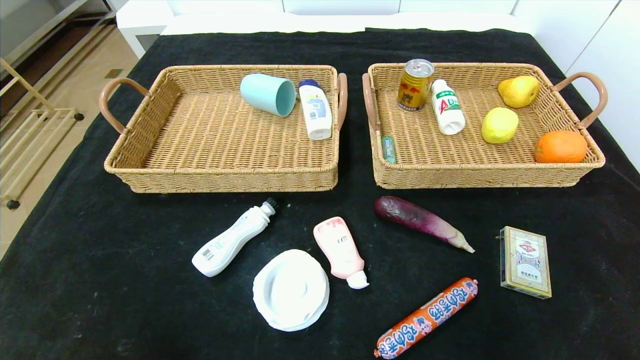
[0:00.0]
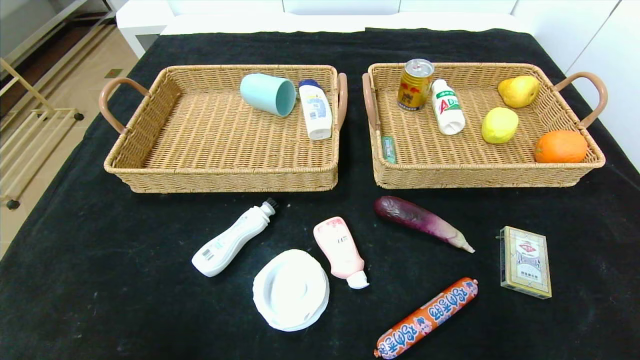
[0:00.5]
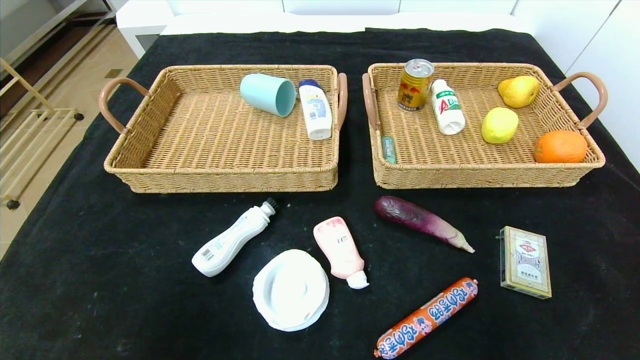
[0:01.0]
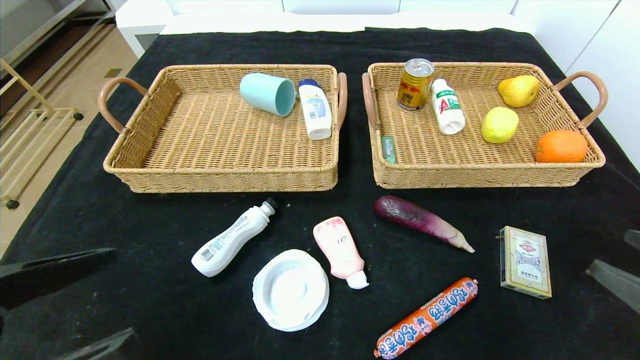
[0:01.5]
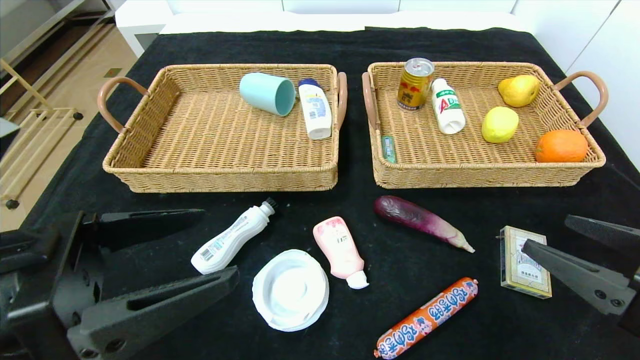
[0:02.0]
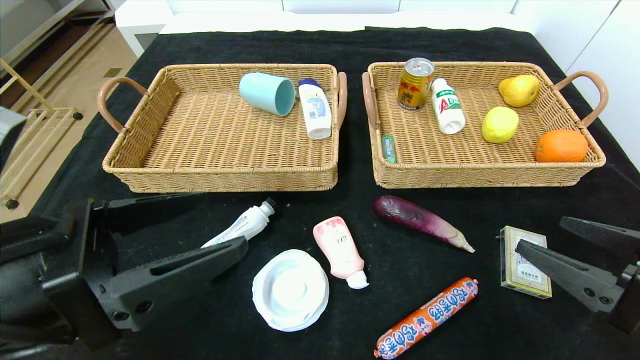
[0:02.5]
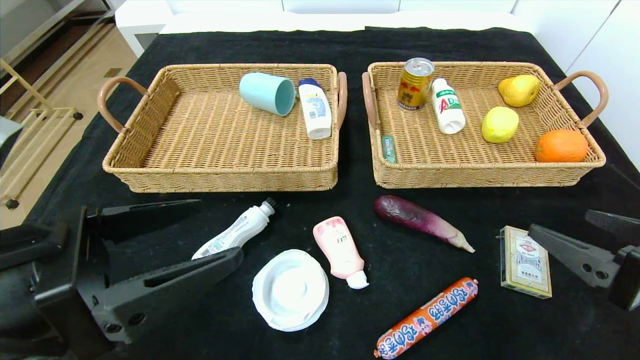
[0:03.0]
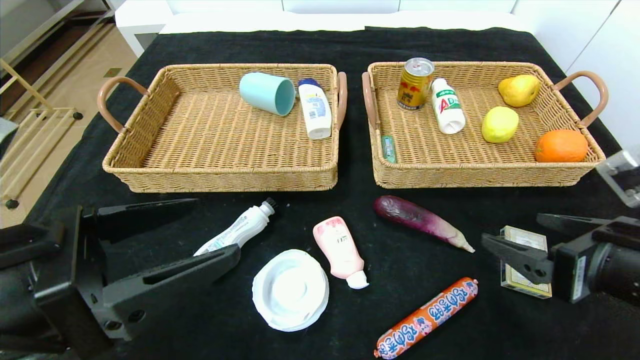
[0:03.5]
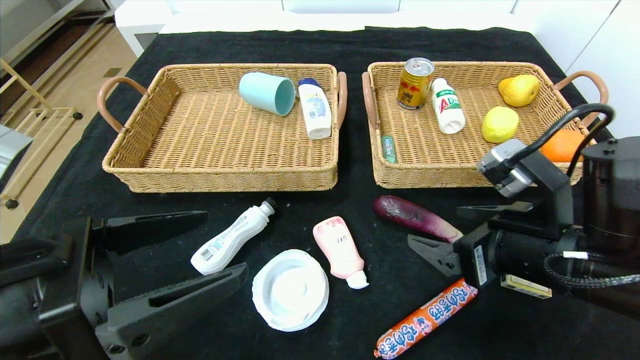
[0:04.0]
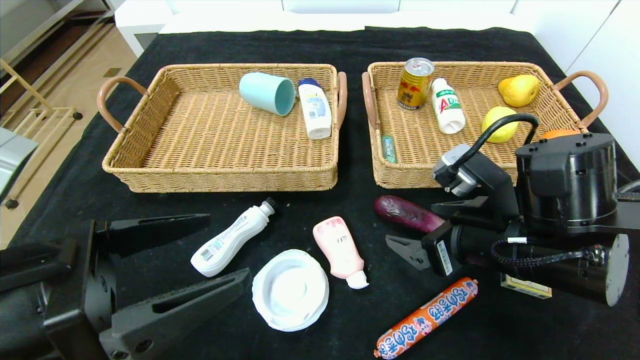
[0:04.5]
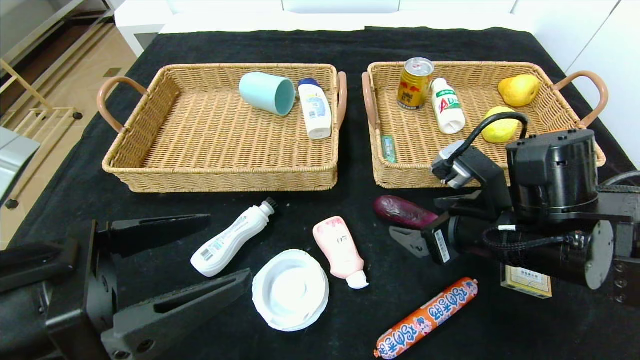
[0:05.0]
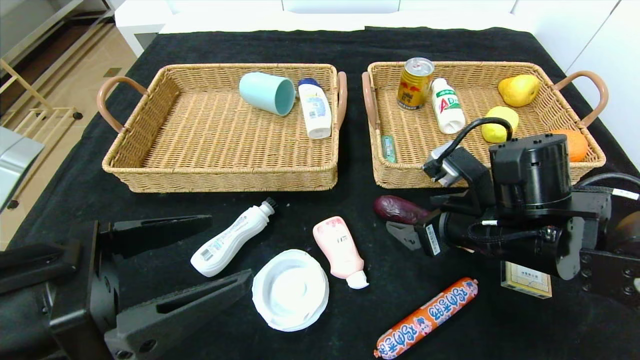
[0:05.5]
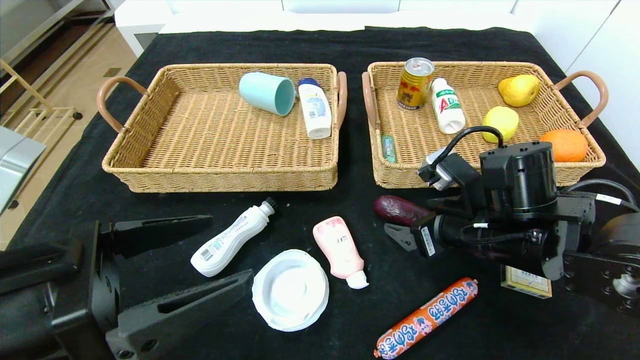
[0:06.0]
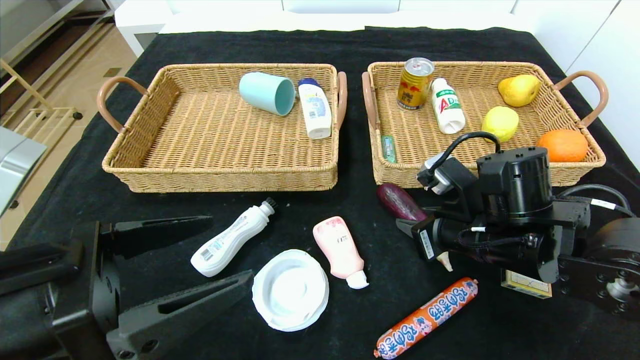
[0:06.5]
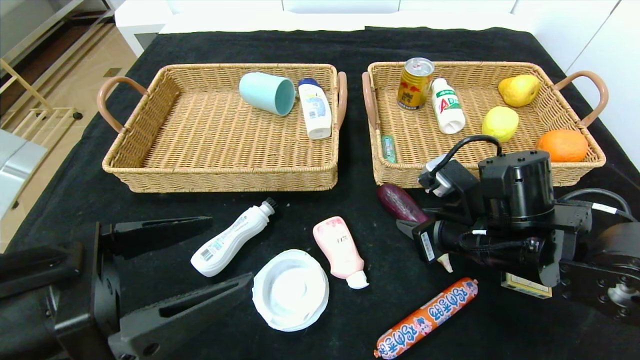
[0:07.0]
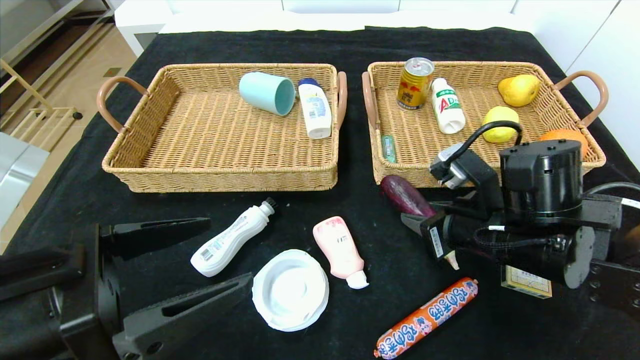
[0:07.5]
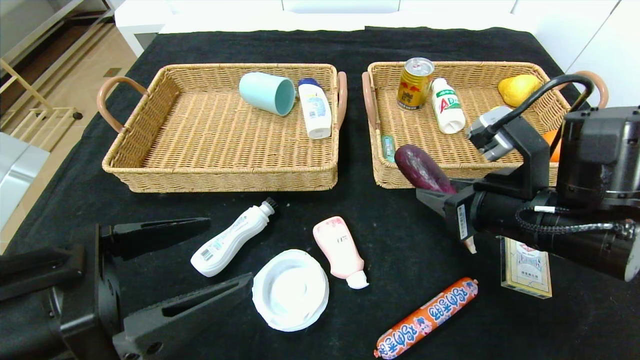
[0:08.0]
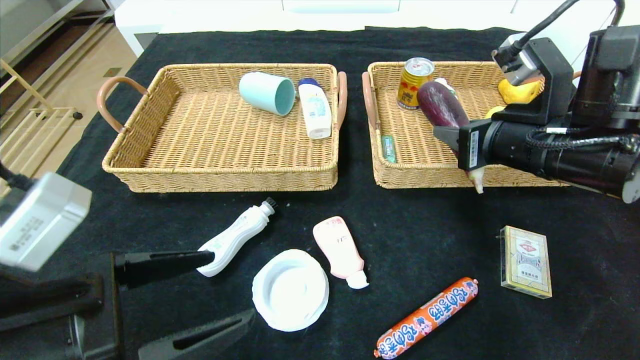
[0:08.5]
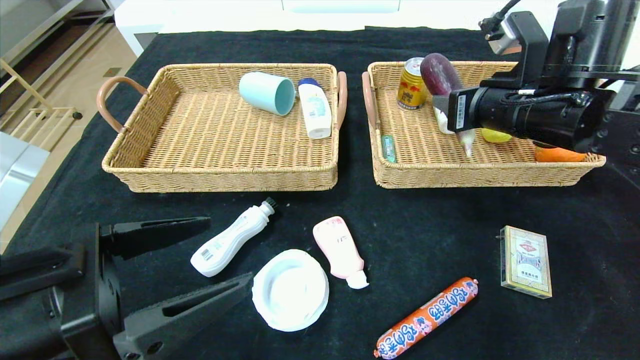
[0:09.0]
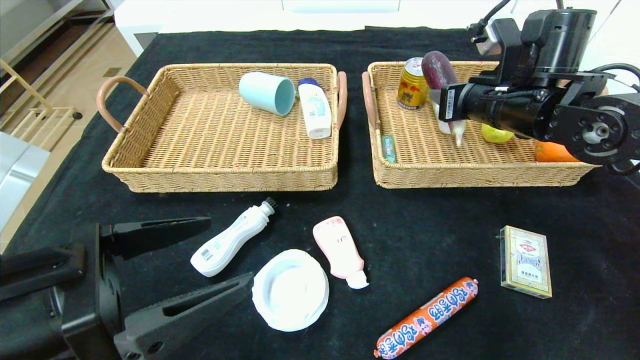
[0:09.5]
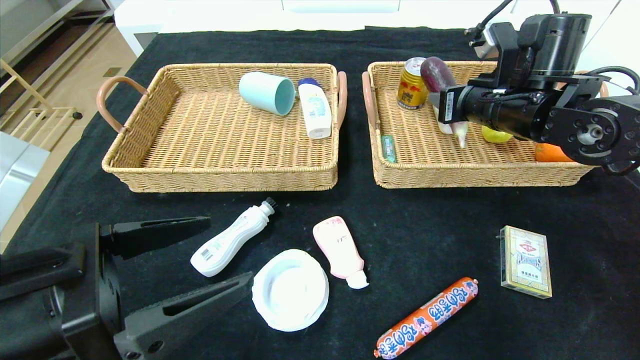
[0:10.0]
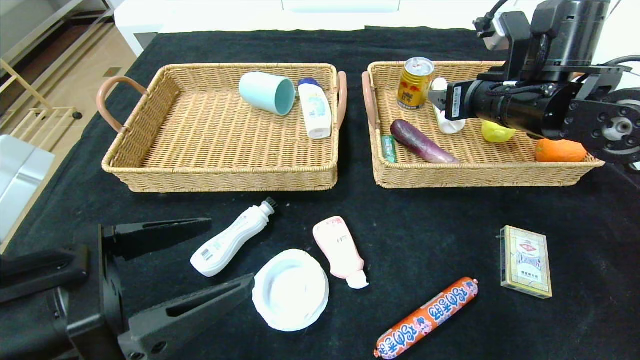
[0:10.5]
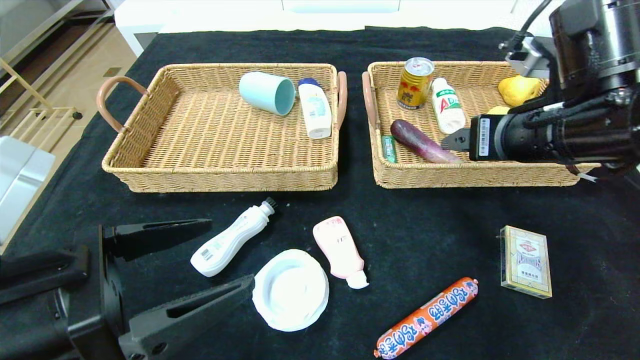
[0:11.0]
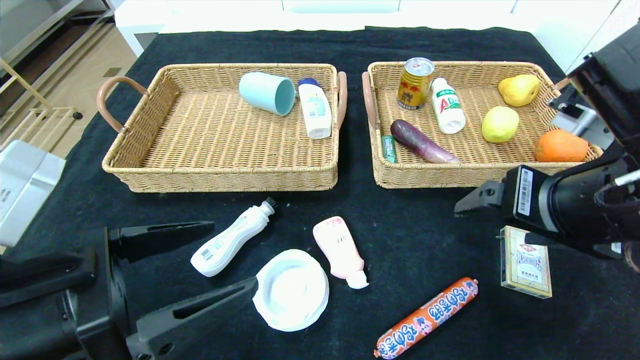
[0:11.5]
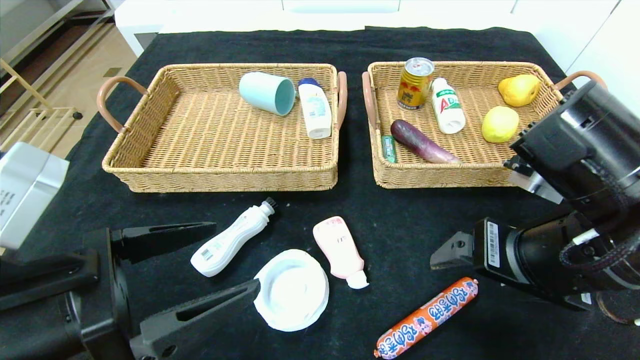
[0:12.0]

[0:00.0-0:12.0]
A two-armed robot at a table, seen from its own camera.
Step, 0:00.0 to 0:10.0: Grasp the eggplant and put it in the right basket.
0:00.0 to 0:02.0: The right gripper heads forward, upward and to the left, covering approximately 20 cm, while the left gripper heads upward, forward and to the right, covering about 25 cm.
0:02.0 to 0:04.0: The right gripper moves to the left and forward, approximately 10 cm.
0:04.0 to 0:06.0: The right gripper travels forward by some 5 cm.
0:06.0 to 0:08.0: The right gripper changes place by about 5 cm, and closes up.
0:08.0 to 0:10.0: The right gripper travels forward and upward by some 15 cm.
0:10.0 to 0:12.0: The right gripper heads backward, covering roughly 20 cm, and opens up.

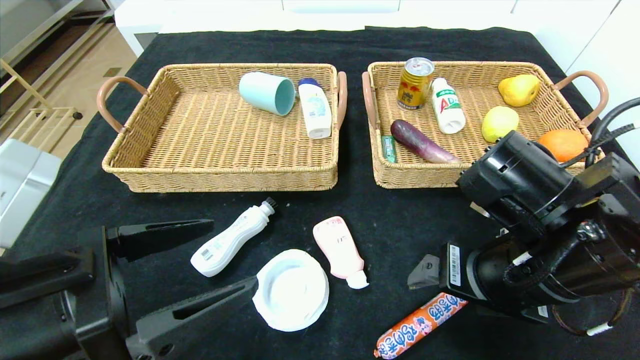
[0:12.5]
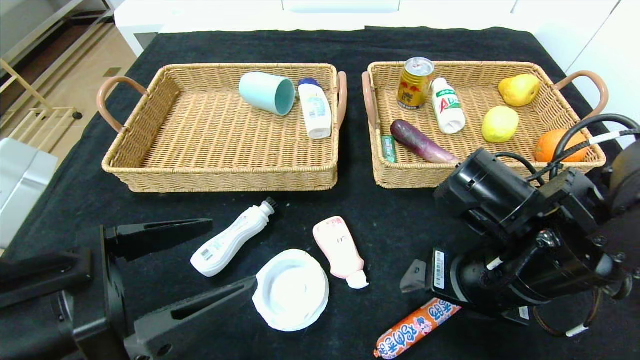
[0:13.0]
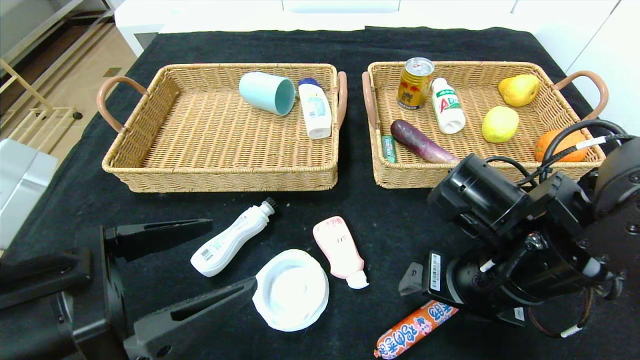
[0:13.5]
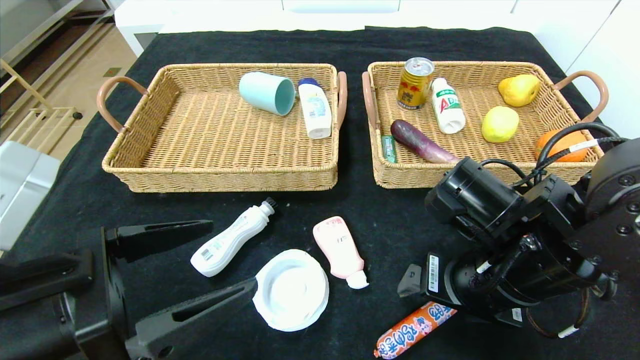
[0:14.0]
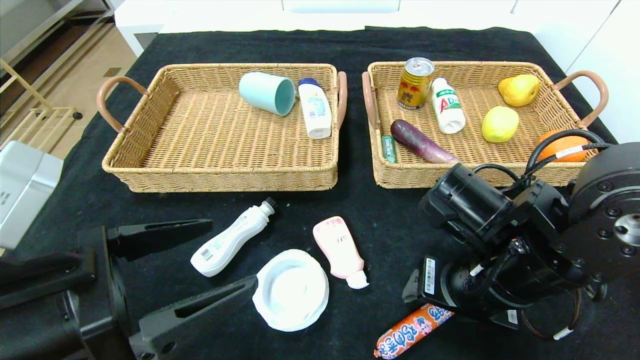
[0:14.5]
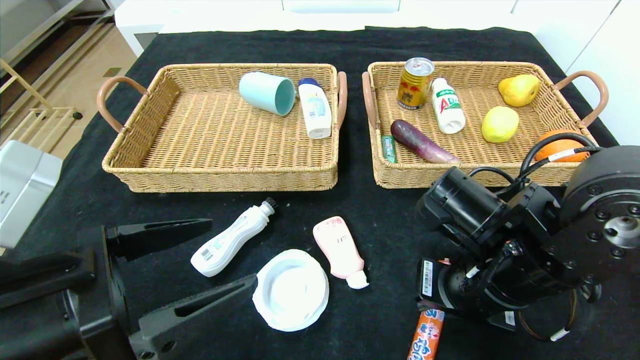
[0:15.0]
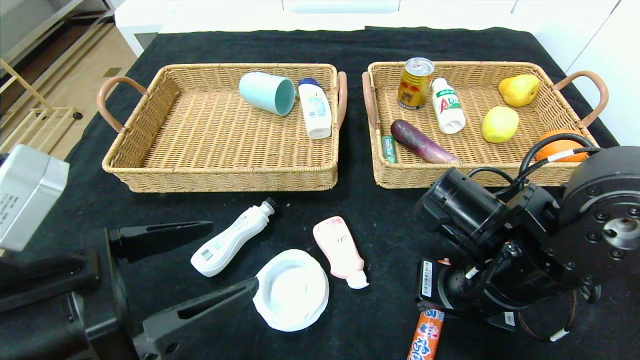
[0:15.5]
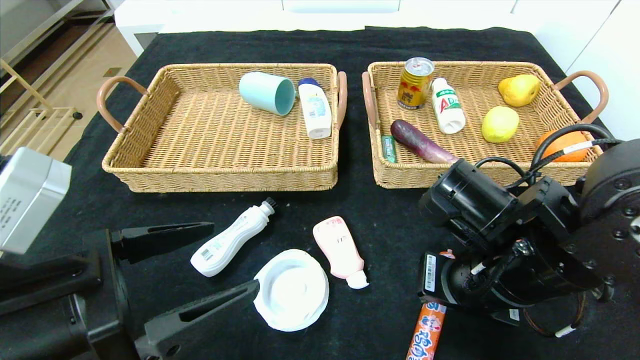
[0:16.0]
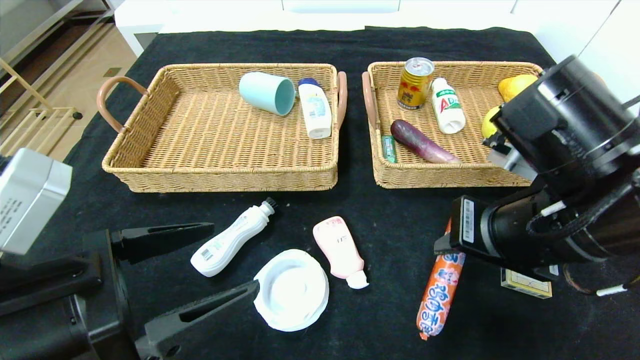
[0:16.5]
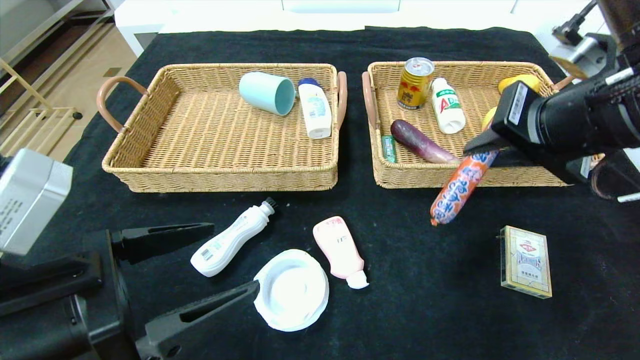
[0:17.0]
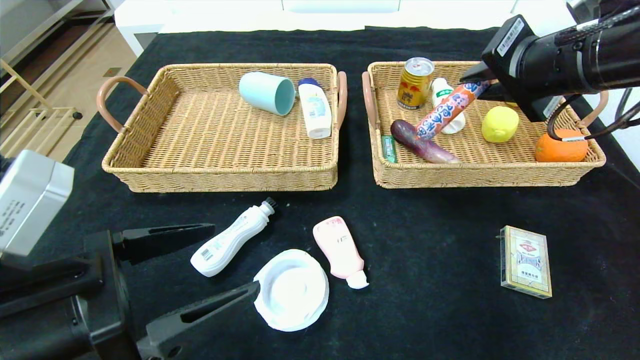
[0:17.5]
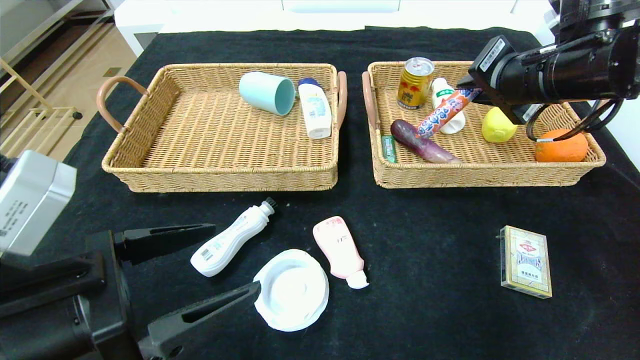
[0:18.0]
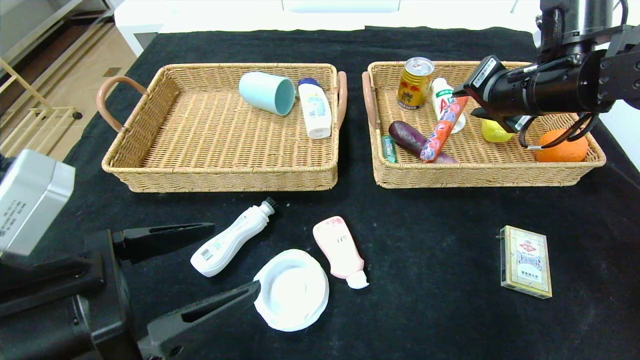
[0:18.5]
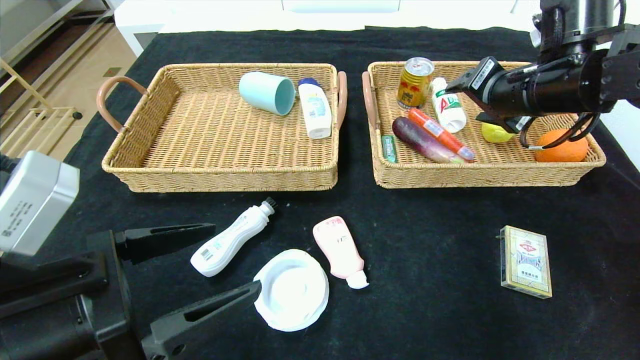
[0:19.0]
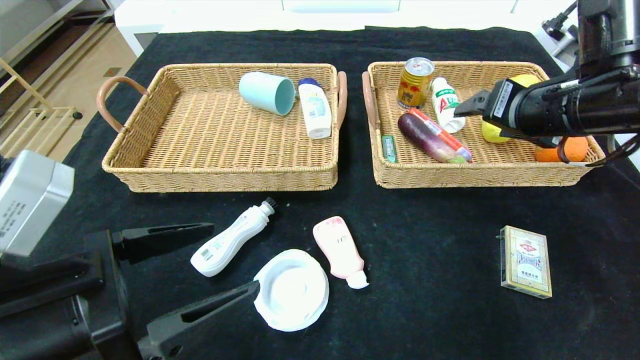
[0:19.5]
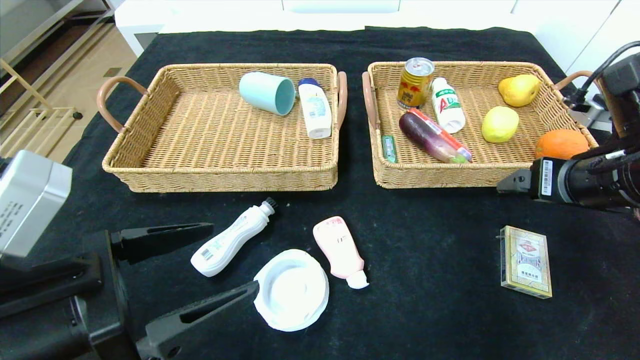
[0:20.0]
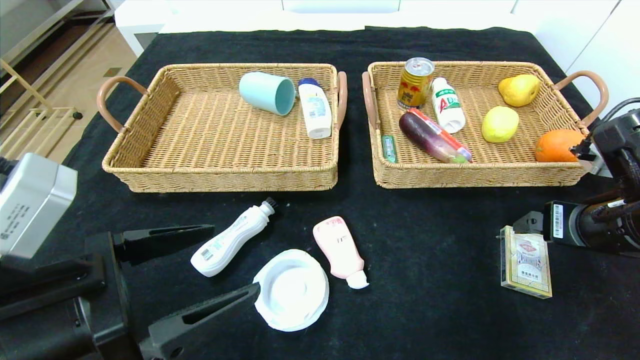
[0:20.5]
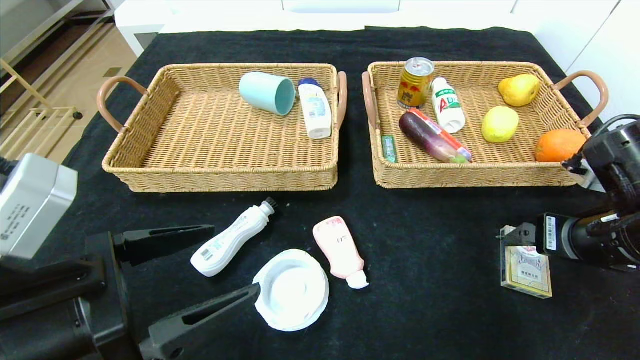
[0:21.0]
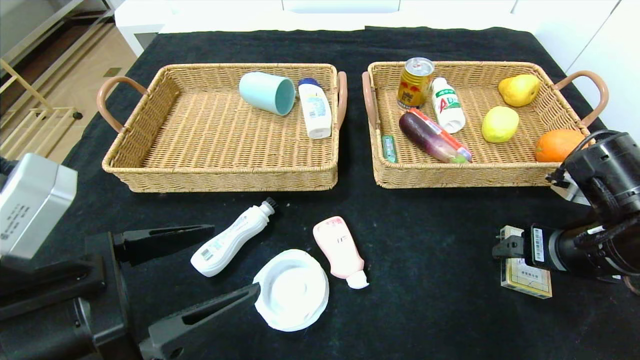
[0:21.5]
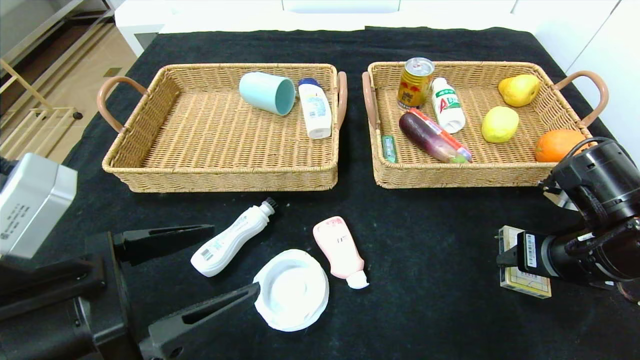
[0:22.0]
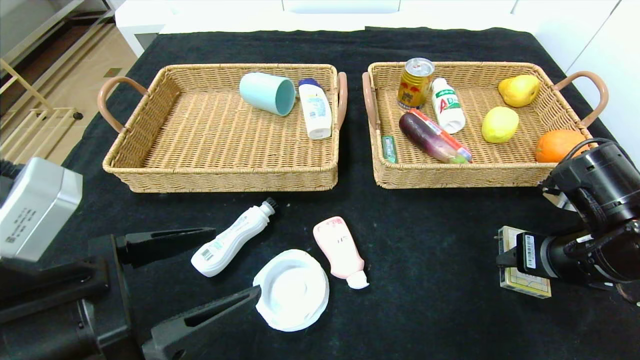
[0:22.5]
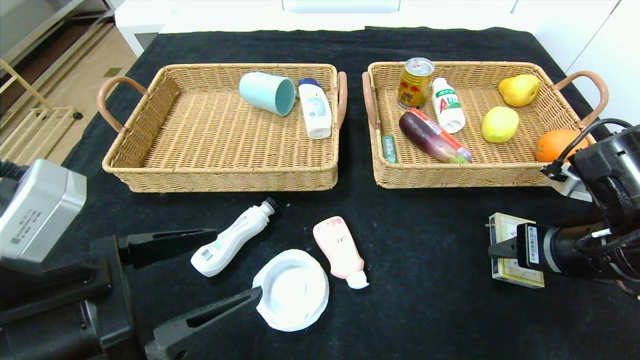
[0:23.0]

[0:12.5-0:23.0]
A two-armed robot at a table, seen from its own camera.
Step, 0:12.5 to 0:18.5: Grasp the sausage and put it in the right basket.
0:12.5 to 0:14.5: The grippers make only small movements.
0:14.5 to 0:16.5: The right gripper shifts about 5 cm upward, and closes its fingers.
0:16.5 to 0:19.0: The right gripper heads forward, to the right and upward, covering roughly 15 cm, and opens.
0:19.0 to 0:21.0: The right gripper travels backward, downward and to the right by approximately 15 cm.
0:21.0 to 0:23.0: The right gripper closes.
